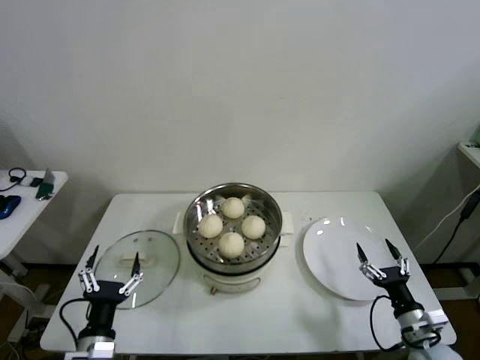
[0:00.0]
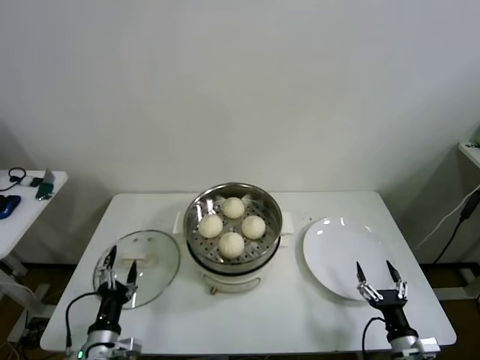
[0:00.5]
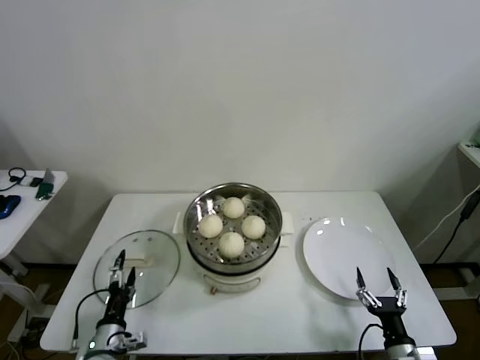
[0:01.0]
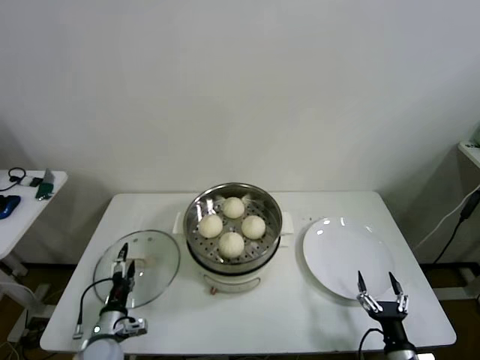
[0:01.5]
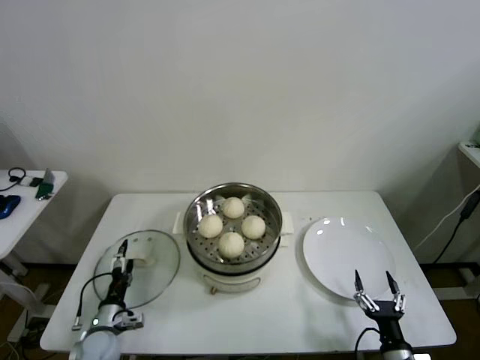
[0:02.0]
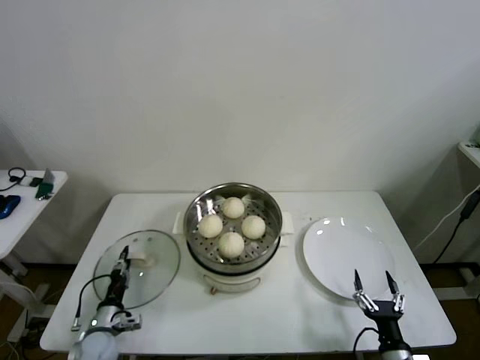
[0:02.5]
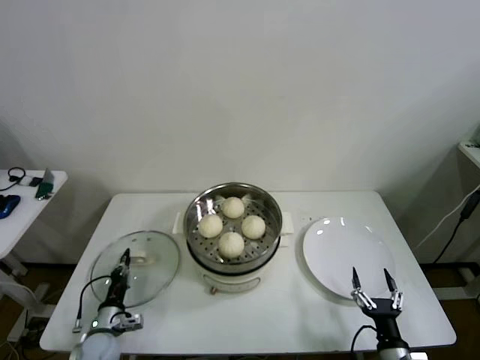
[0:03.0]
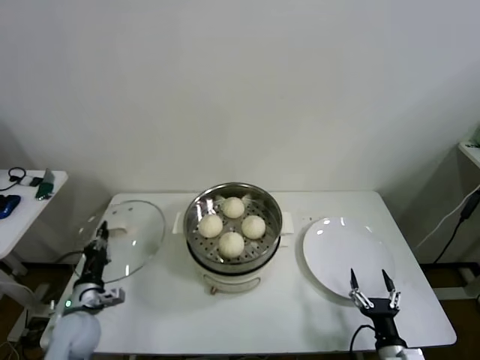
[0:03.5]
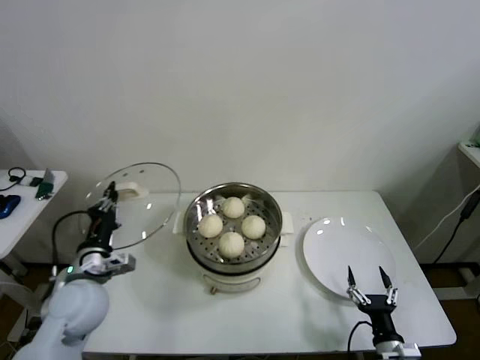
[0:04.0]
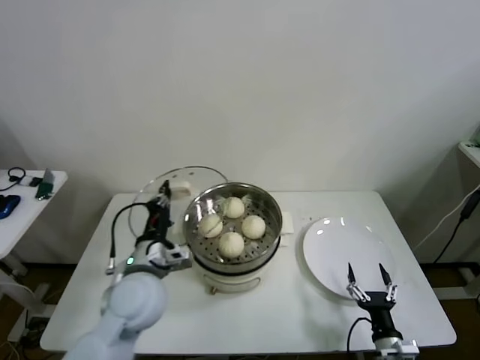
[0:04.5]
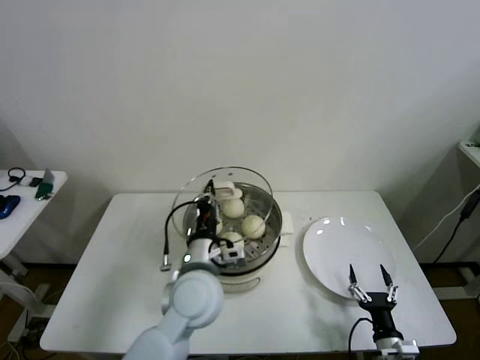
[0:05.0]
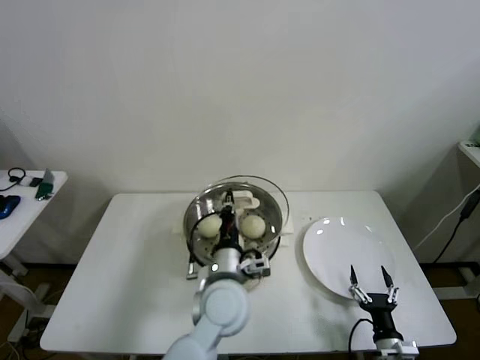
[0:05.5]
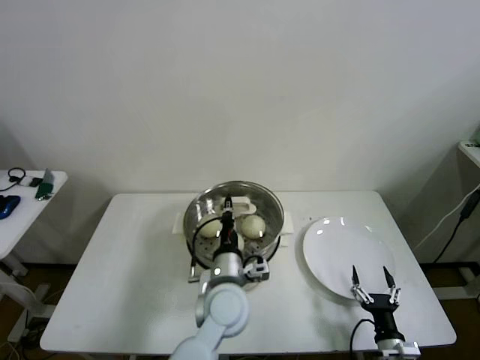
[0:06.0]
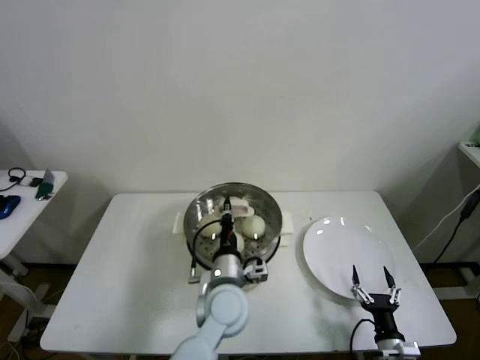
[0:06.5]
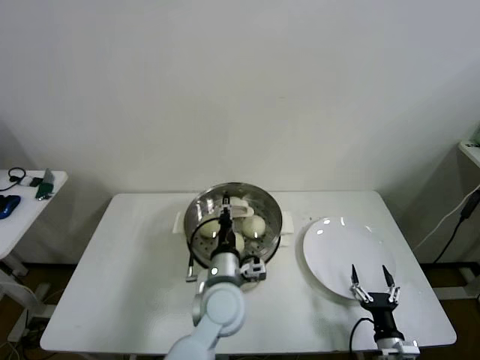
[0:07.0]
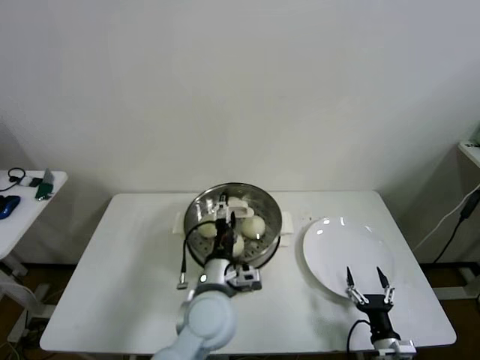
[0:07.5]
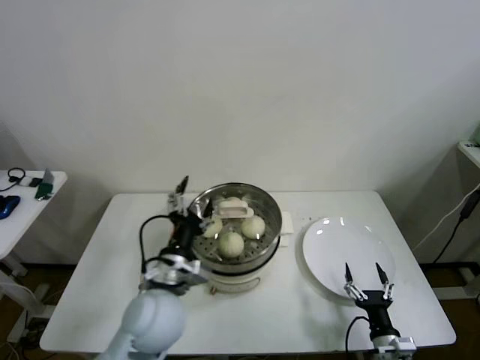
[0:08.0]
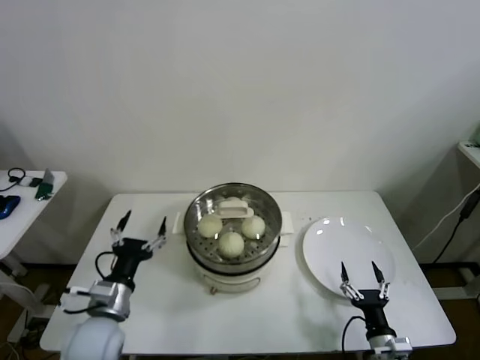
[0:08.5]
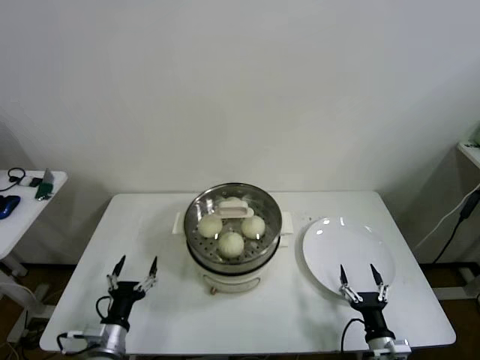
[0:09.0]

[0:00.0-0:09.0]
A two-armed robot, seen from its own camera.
Step, 0:00.0 to 0:02.5: Grasp the pot lid with left gripper.
Step, 0:03.0 to 0:07.0: Place the pot lid on the steamer with left gripper.
0:00.0 to 0:02.0: The right gripper moves backward, to the left and downward, about 10 cm, while the left gripper goes approximately 20 cm downward, forward and to the left.
0:02.0 to 0:04.5: The left gripper moves upward and to the right, roughly 30 cm, and closes its fingers.
0:04.5 to 0:07.0: The left gripper travels to the right and downward by about 20 cm.
0:07.0 to 0:09.0: The left gripper goes some 25 cm to the left, and opens its fingers.
